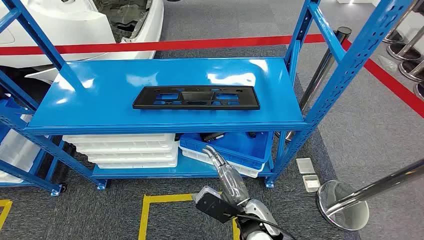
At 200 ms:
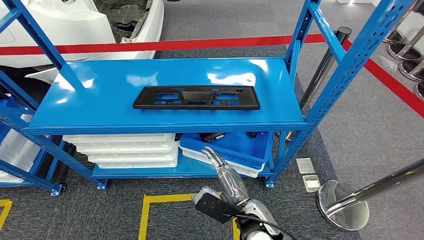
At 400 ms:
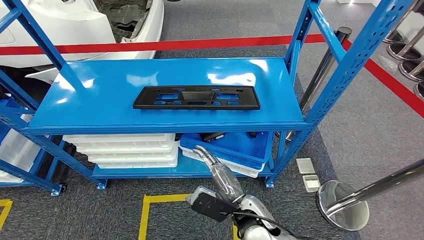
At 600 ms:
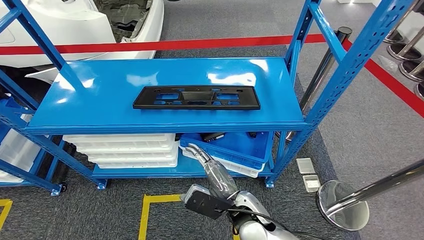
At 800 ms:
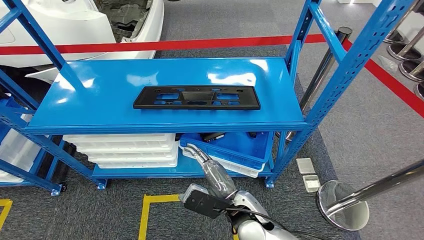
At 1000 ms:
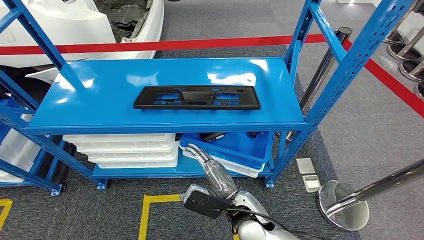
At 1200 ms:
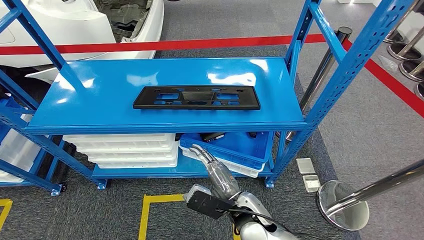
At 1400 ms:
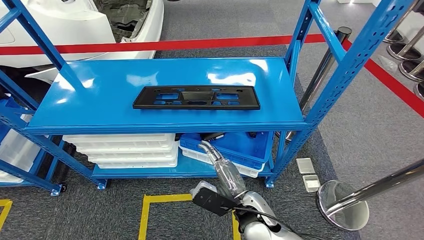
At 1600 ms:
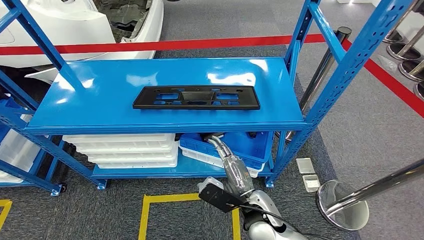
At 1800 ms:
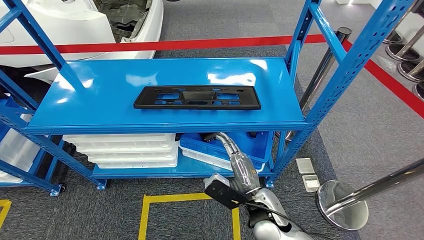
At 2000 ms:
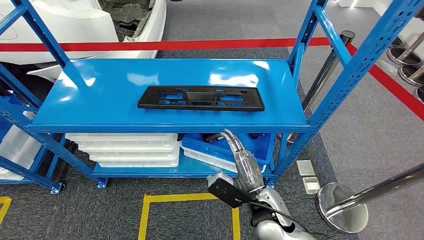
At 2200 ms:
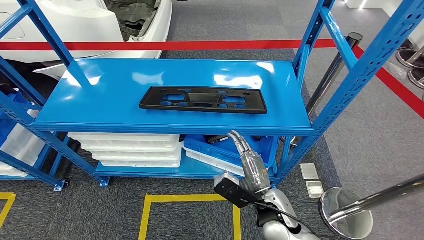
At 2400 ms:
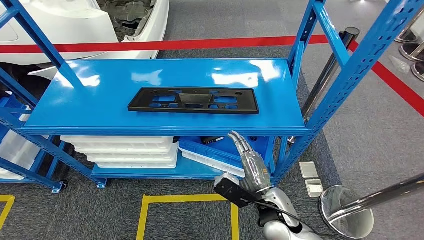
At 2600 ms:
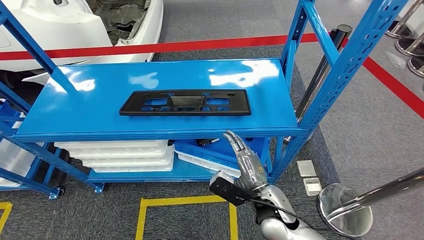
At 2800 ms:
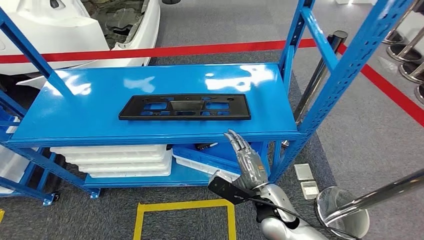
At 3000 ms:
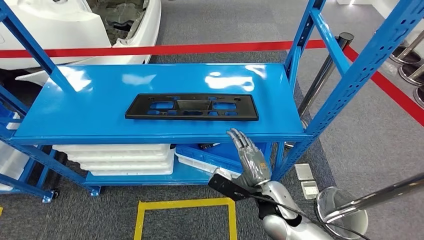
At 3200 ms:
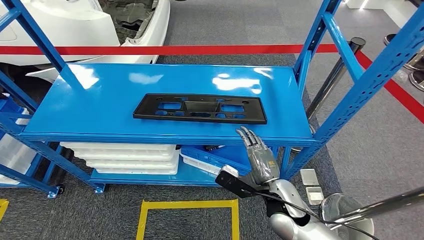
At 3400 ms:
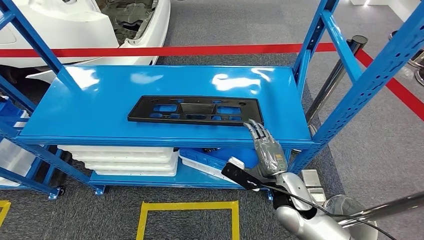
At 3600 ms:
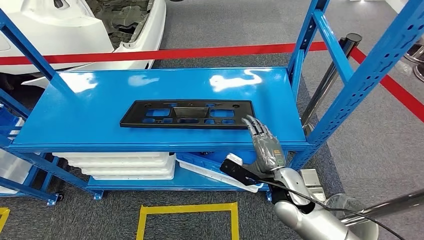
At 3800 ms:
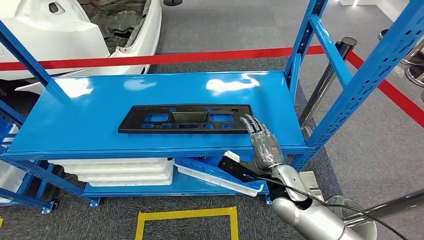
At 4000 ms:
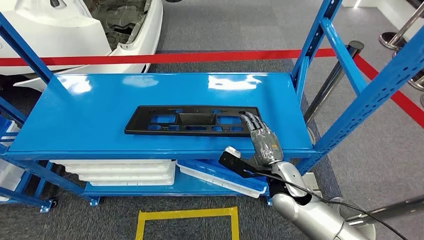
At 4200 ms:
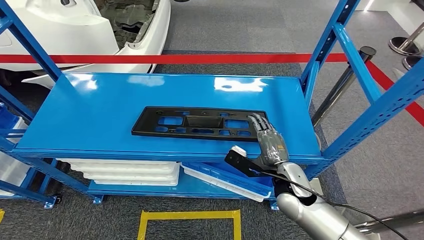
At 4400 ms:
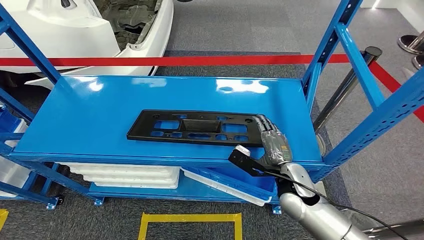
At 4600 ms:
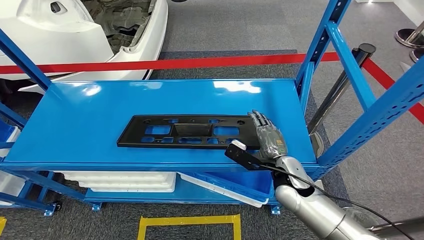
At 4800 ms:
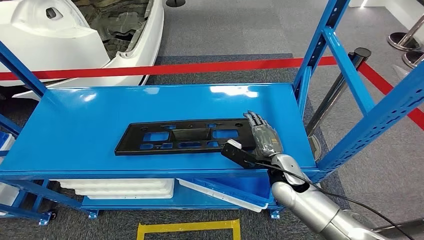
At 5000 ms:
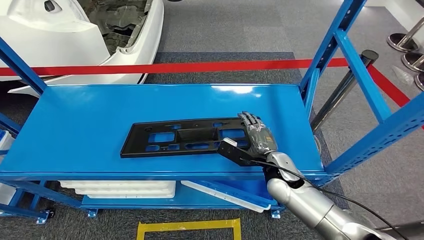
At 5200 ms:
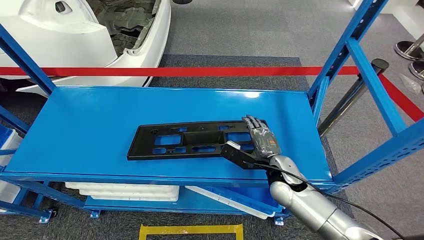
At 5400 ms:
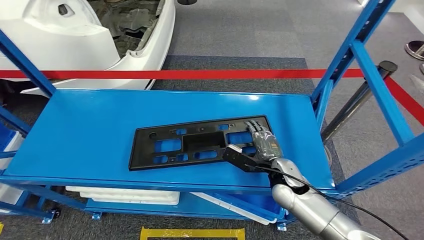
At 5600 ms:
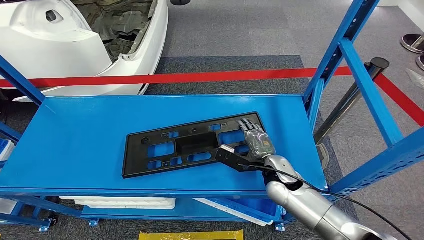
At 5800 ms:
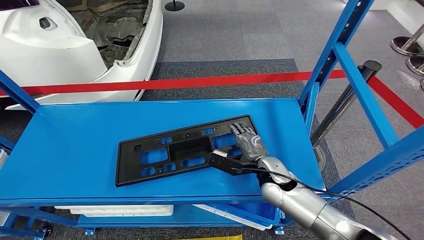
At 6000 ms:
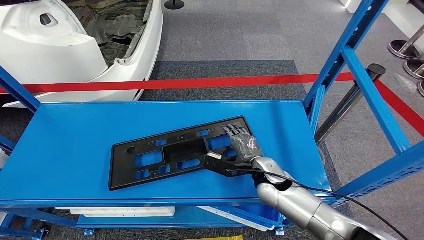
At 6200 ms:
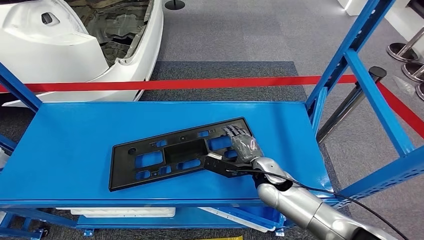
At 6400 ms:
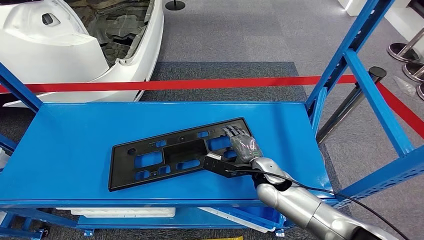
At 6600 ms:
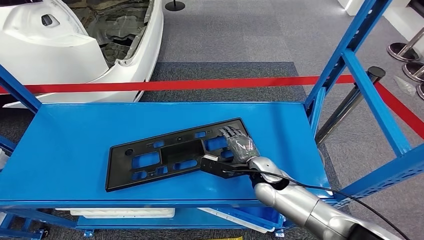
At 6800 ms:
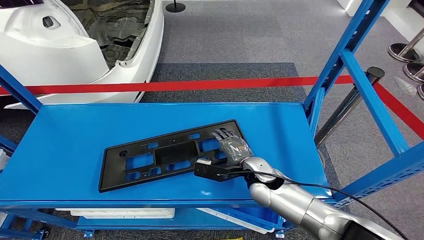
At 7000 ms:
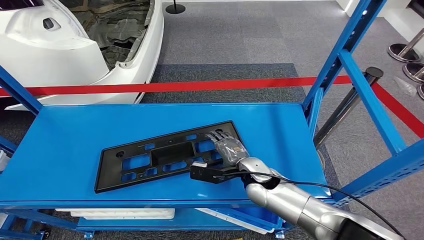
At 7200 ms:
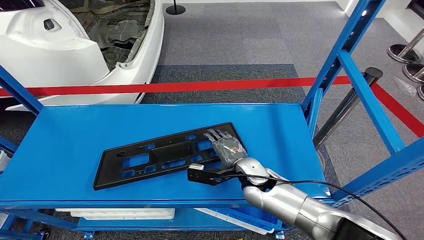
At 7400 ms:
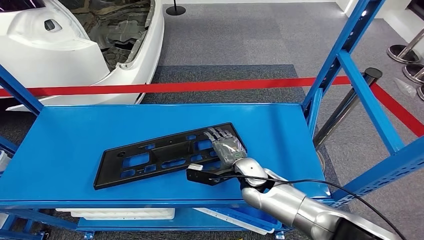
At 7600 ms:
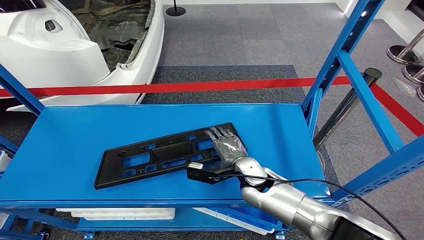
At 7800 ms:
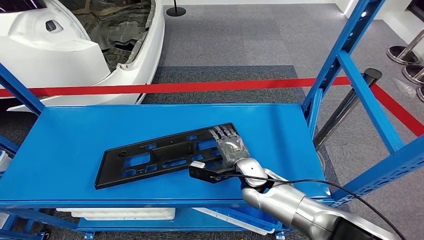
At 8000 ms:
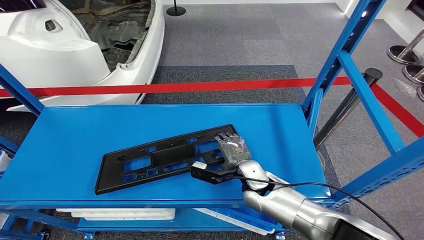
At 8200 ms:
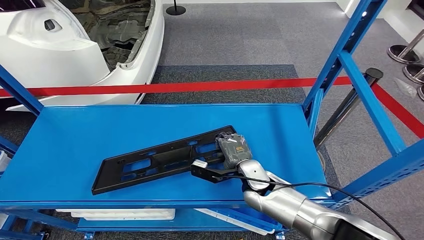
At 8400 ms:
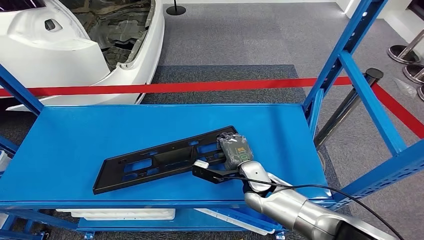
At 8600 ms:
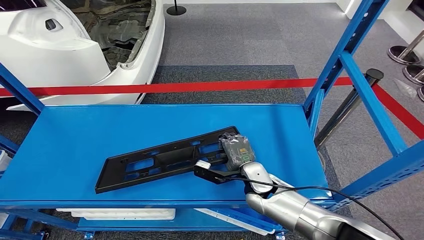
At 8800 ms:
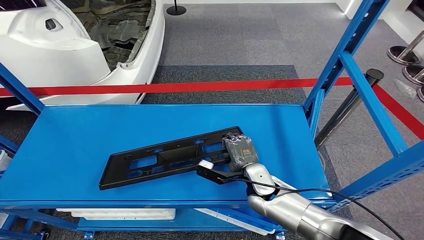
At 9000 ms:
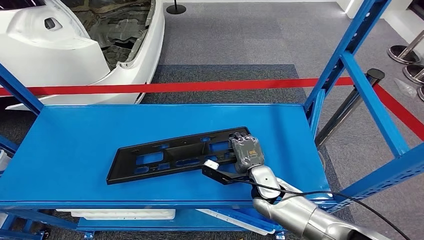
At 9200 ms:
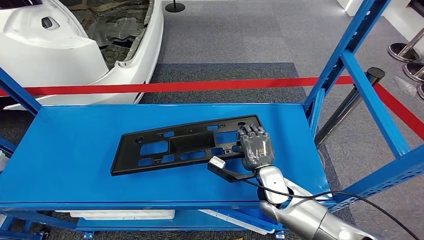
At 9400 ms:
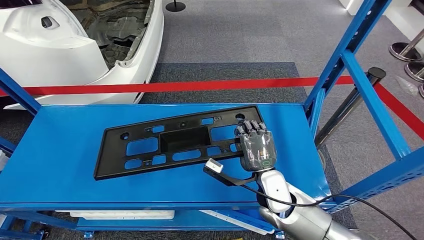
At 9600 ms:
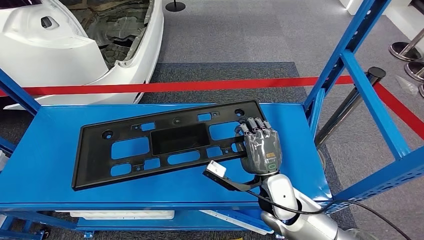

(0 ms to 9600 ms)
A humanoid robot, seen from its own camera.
Step, 0 ms - 9600 ms: Pick up the large material from the shelf.
